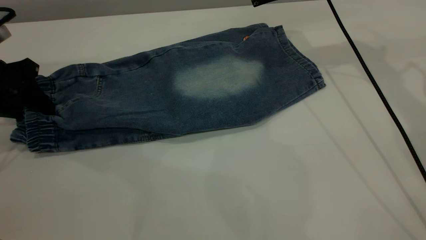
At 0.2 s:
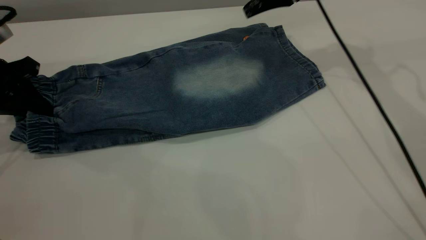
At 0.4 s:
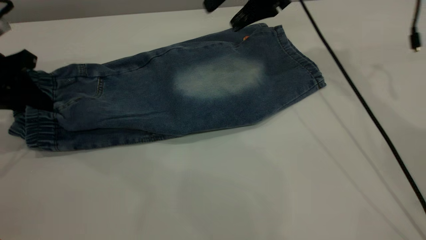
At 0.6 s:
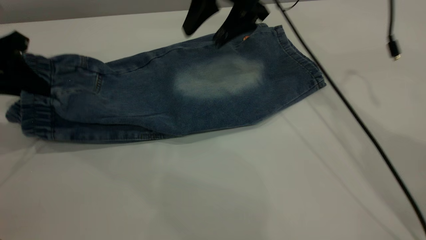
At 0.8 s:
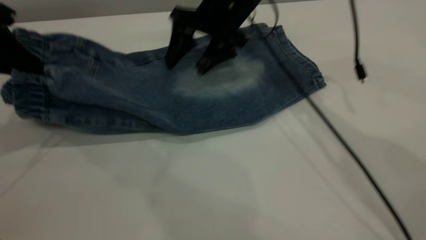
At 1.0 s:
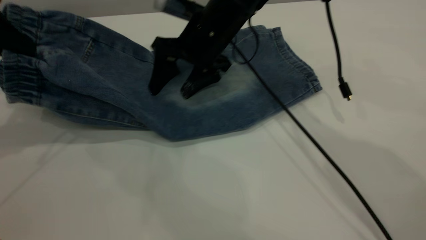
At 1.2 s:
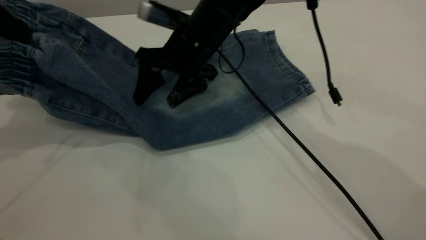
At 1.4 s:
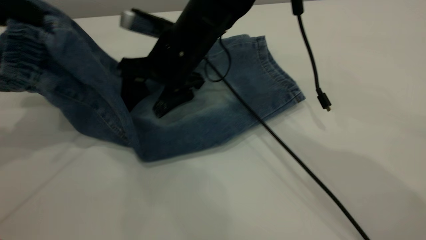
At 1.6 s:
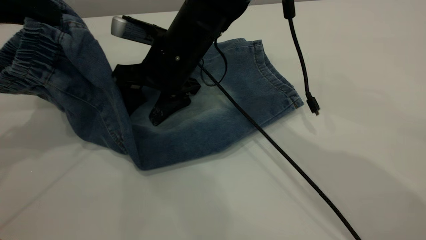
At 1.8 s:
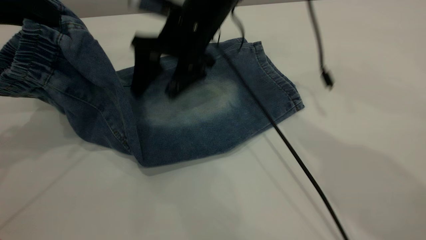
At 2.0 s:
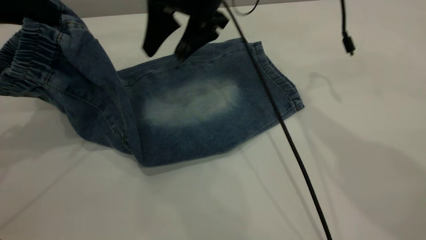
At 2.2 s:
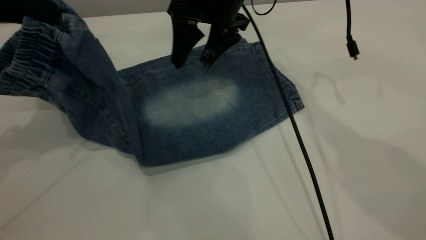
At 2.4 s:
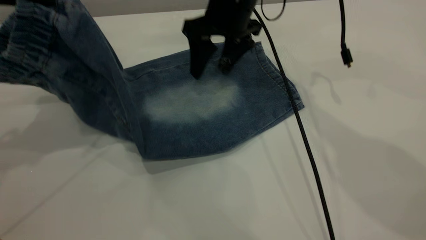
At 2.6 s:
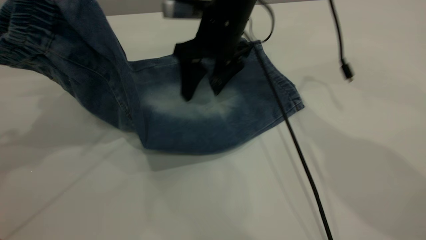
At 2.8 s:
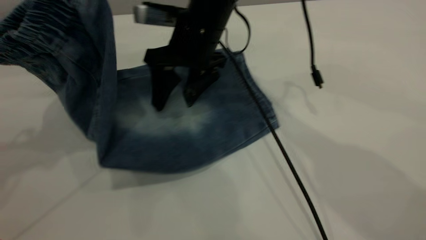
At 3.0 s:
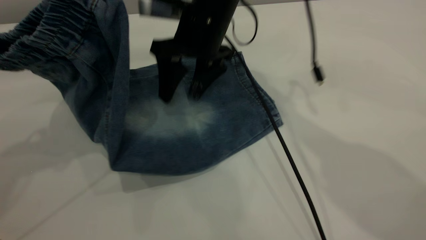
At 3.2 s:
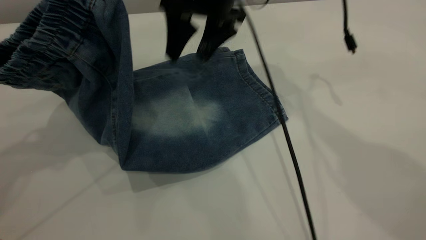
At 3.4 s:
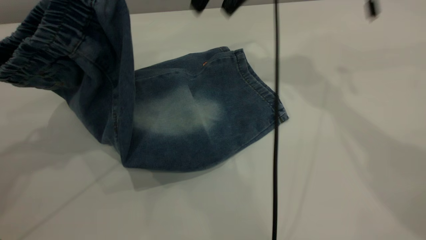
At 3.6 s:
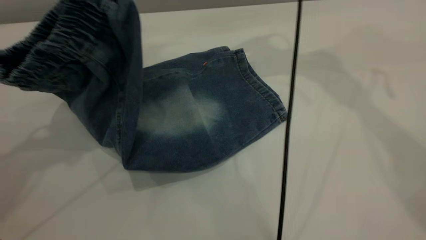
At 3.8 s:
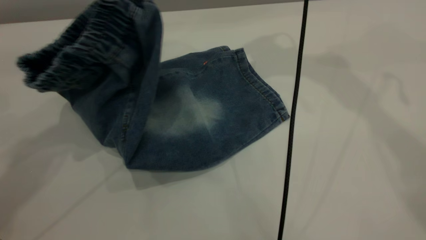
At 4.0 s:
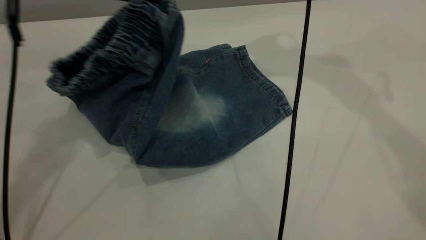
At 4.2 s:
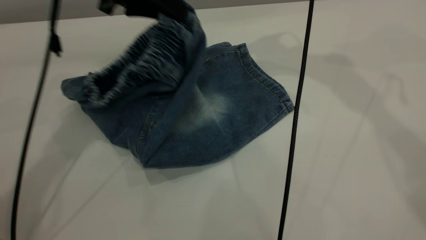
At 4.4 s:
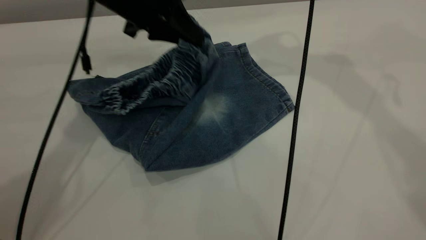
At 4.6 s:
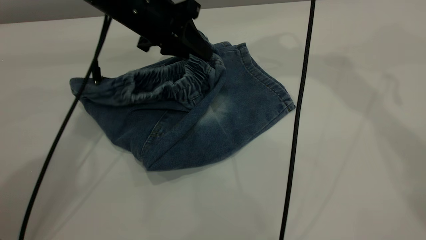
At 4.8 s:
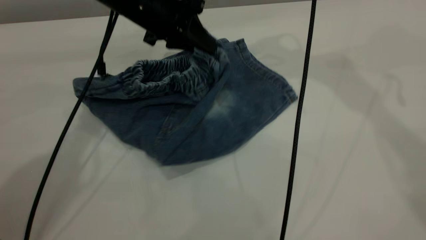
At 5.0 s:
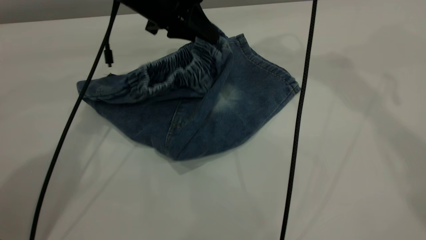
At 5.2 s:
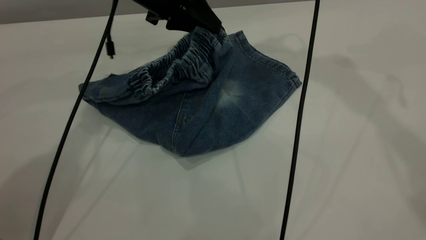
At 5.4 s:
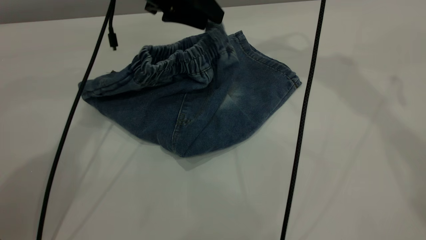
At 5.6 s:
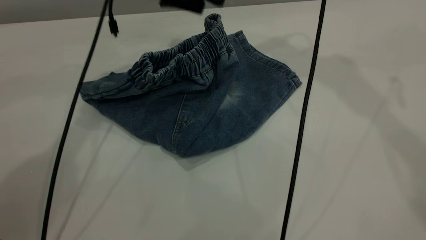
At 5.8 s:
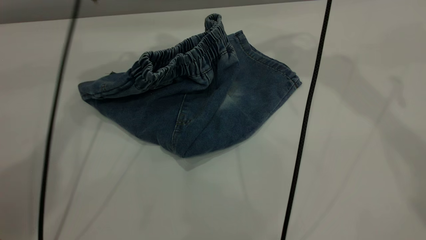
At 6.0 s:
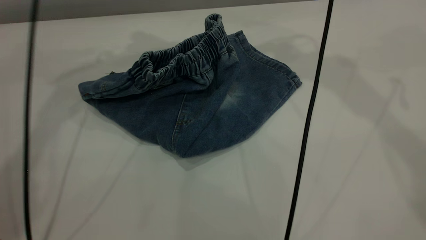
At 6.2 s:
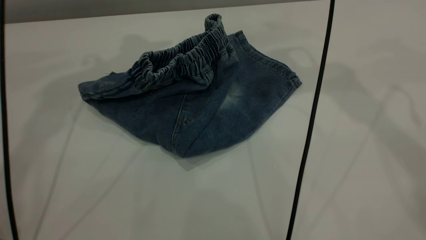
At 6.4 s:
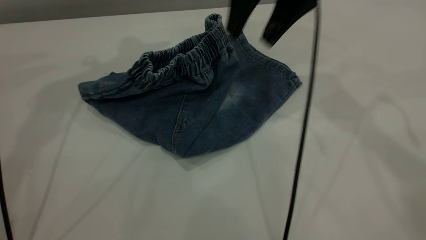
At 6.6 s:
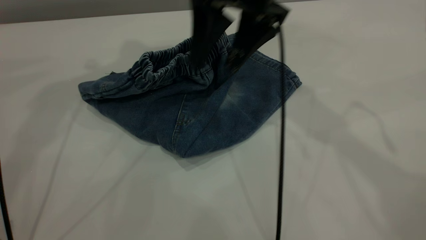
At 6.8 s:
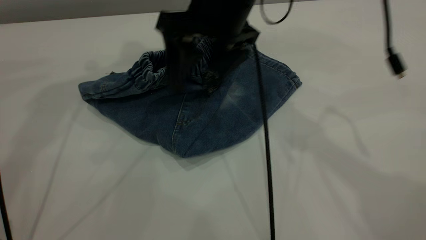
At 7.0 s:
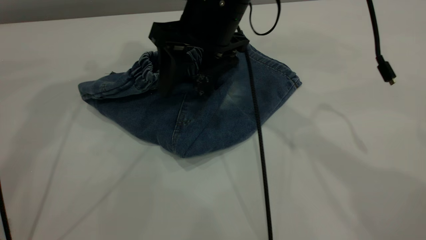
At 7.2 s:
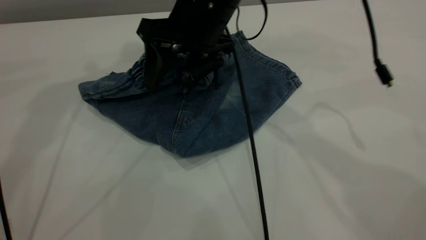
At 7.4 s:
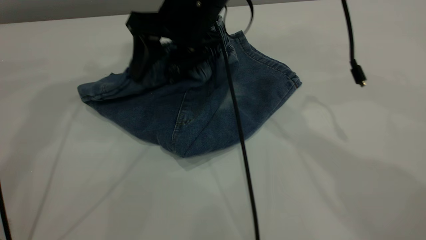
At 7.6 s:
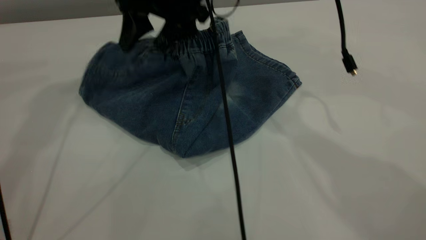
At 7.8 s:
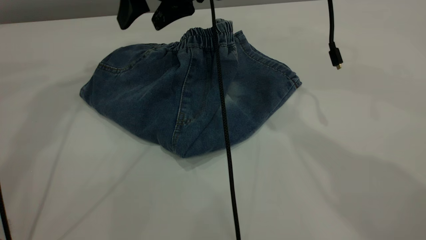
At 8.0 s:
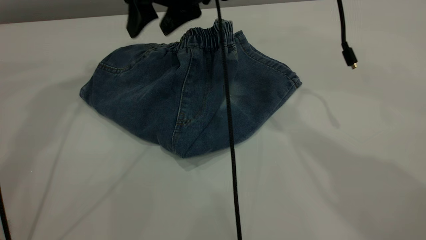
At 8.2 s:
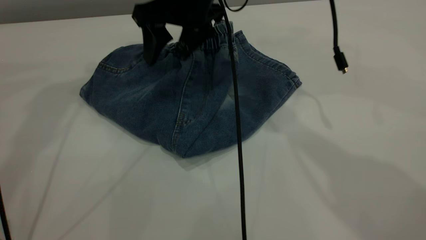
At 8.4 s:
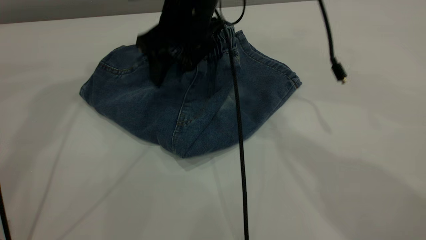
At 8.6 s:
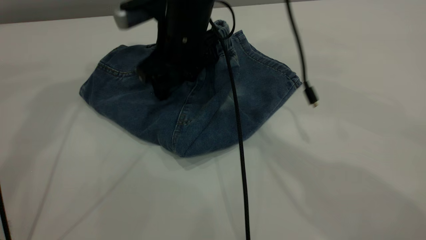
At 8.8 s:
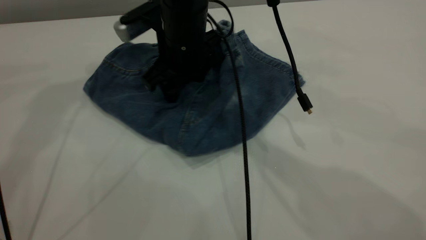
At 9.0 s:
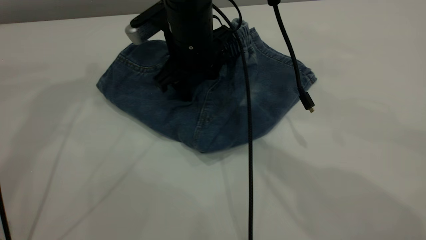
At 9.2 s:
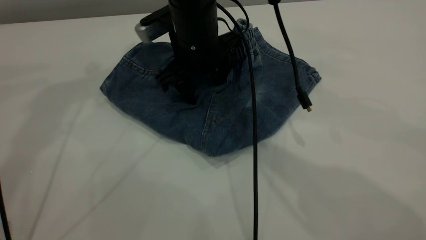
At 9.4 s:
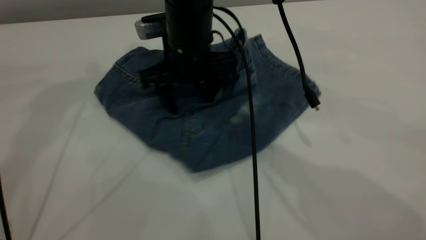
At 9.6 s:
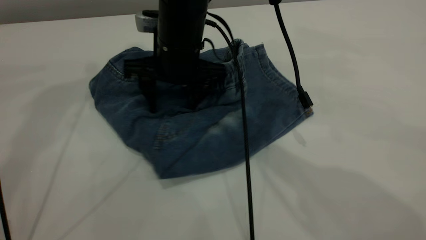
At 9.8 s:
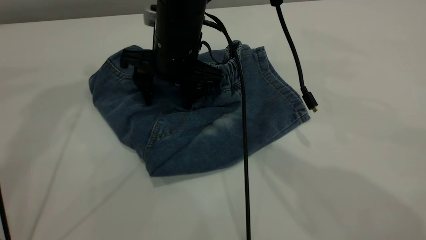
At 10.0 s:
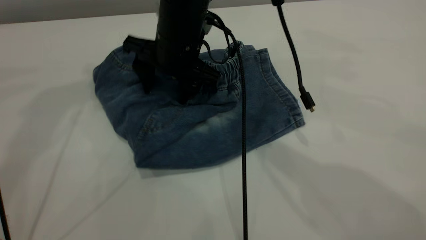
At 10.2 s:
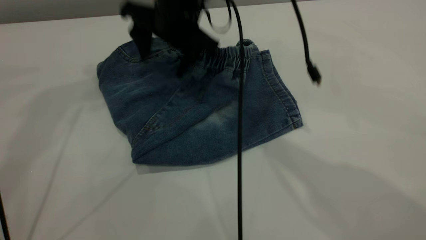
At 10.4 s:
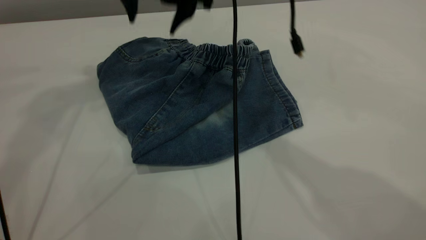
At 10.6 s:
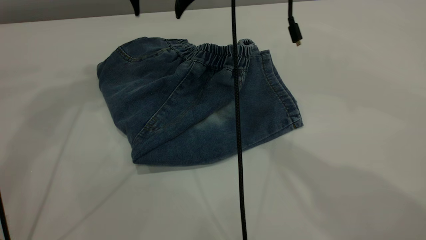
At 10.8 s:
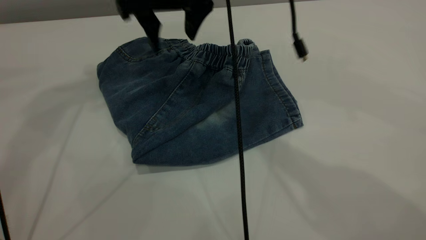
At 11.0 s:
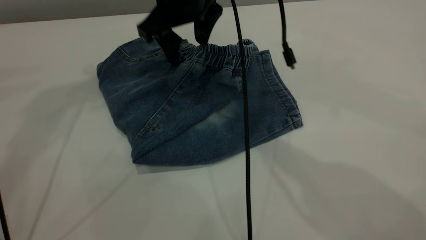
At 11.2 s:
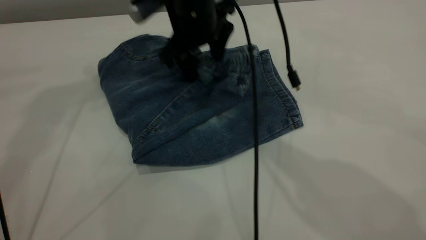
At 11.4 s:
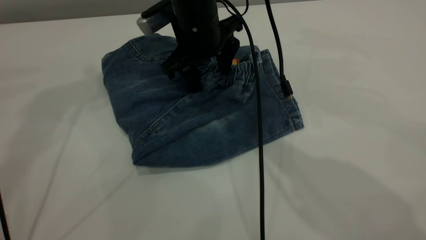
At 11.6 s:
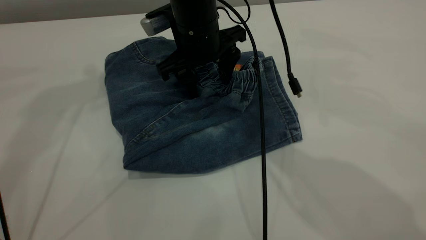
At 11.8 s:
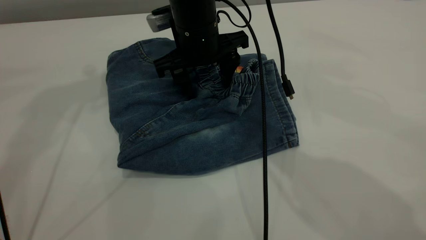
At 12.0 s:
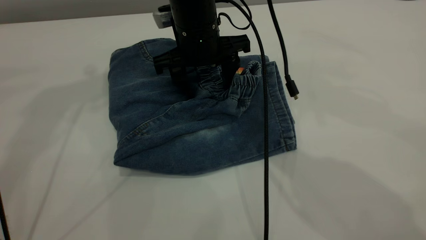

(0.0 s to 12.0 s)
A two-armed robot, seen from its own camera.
Step, 0.0 s - 5.8 s: Fold the pants from left to right.
0.0 s - 1.6 s: The left gripper travels upward and to the right by roughly 15 cm. The right gripper goes about 25 cm to the left, backward and downward.
1.6 s - 3.0 s: The left gripper moves to the right, approximately 5 cm.
3.0 s - 4.4 s: The right gripper goes some 20 cm upward and to the right, while the left gripper goes about 20 cm downward, forward and to the right.
4.4 s - 6.0 s: The left gripper is displaced upward and forward by roughly 15 cm, and opens.
6.0 s - 7.6 s: The right gripper travels to the left and downward by about 20 cm; the left gripper heads upward, covering roughly 10 cm.
7.6 s - 9.0 s: The right gripper shifts about 10 cm downward.
9.0 s - 10.4 s: The right gripper shifts some 10 cm upward.
10.4 s - 12.0 s: The right gripper heads downward, covering approximately 10 cm.

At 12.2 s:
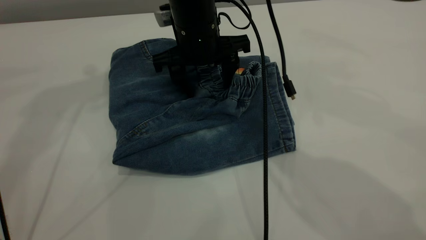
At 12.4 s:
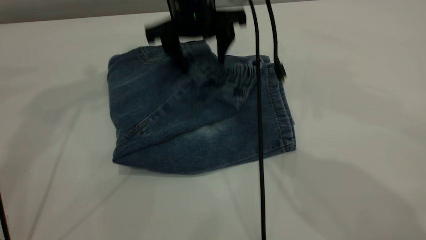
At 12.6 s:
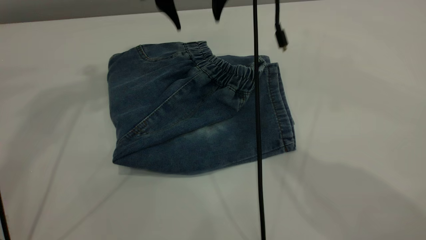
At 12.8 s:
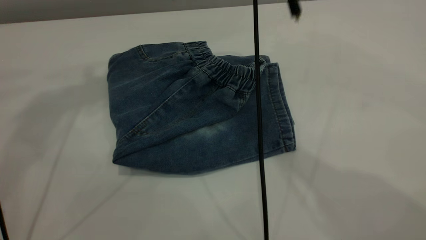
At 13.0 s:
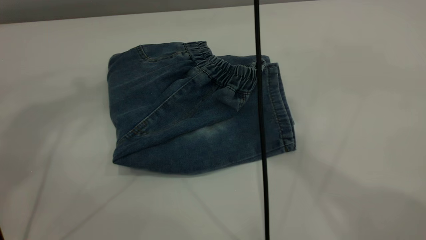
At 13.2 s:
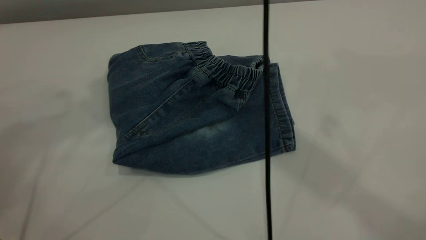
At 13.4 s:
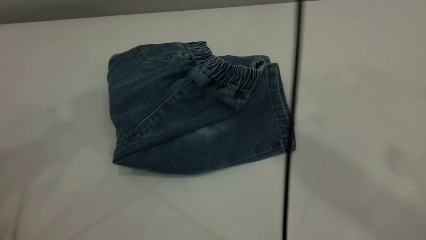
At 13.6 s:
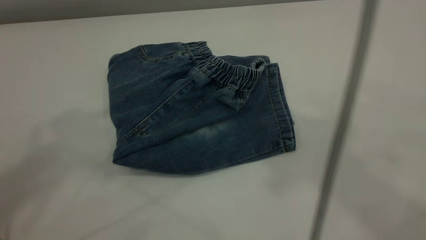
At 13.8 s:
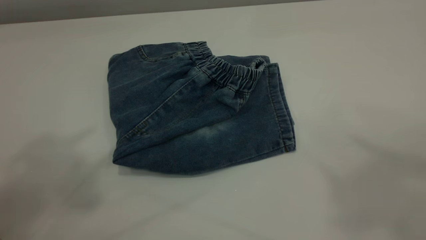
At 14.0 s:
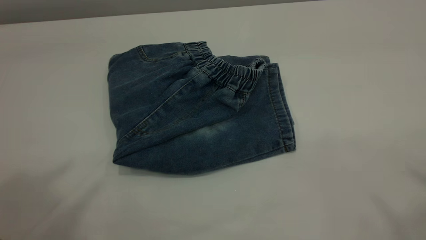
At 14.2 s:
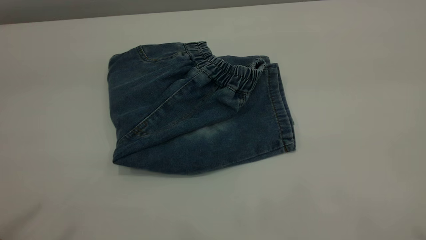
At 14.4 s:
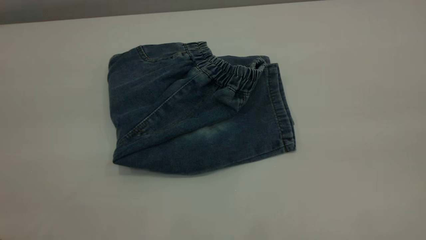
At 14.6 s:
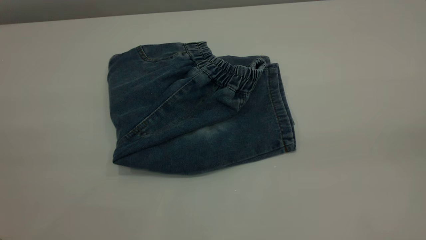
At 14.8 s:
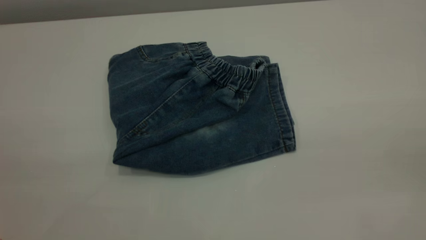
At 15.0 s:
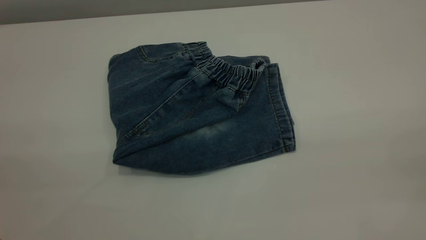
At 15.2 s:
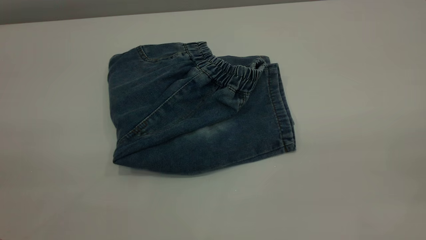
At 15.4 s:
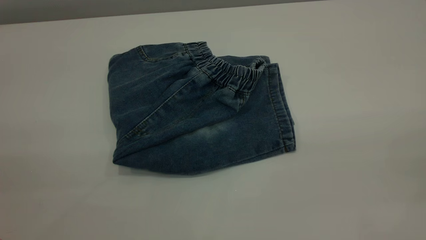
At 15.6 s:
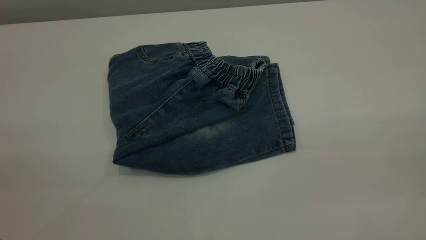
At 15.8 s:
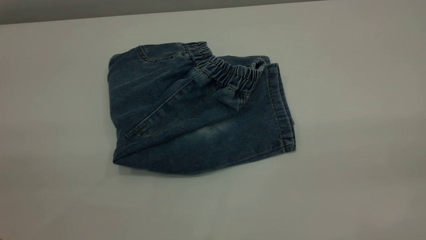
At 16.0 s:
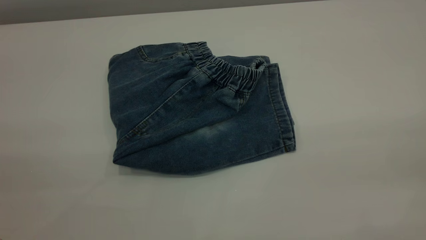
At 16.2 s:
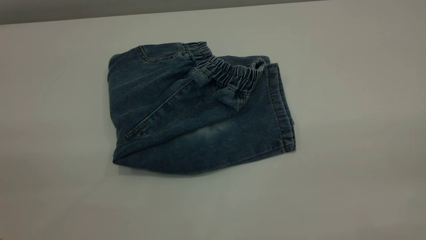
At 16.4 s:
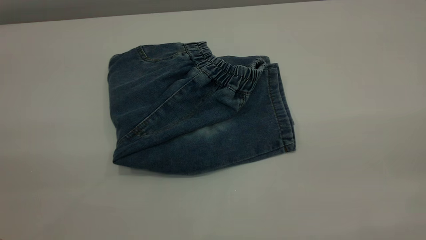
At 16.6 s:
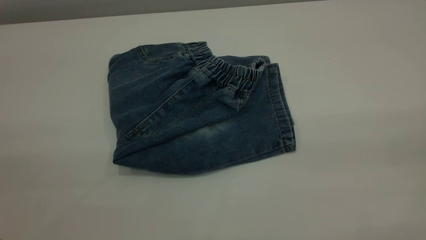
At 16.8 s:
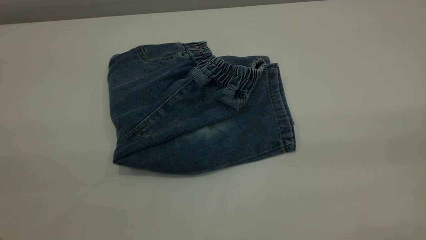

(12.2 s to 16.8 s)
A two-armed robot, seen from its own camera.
12.2 s - 13.8 s: The left gripper heads backward and upward, covering approximately 25 cm; the right gripper is displaced upward, backward and to the right by approximately 50 cm.
